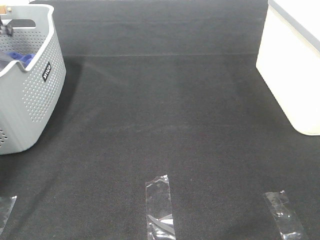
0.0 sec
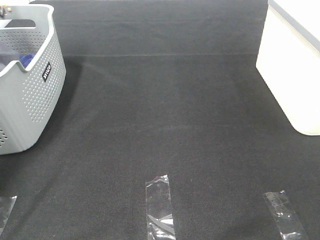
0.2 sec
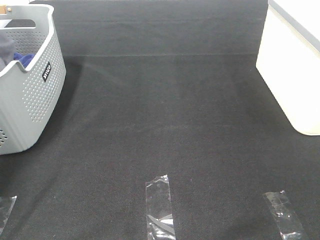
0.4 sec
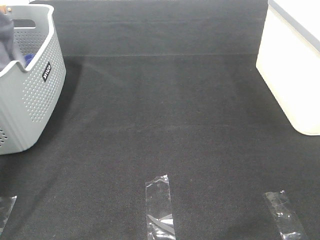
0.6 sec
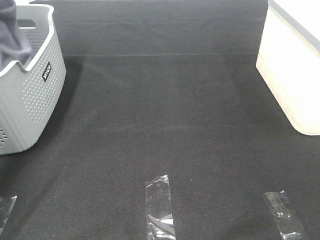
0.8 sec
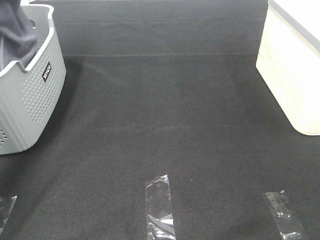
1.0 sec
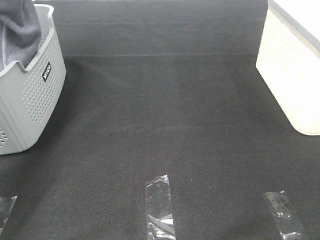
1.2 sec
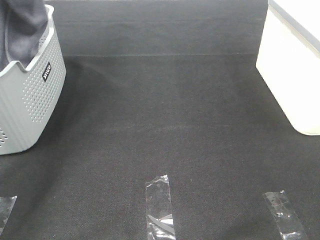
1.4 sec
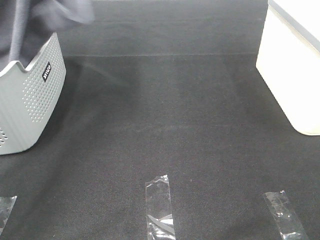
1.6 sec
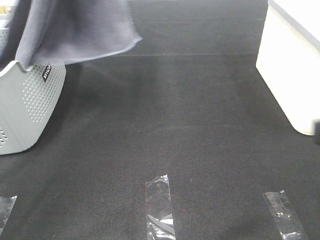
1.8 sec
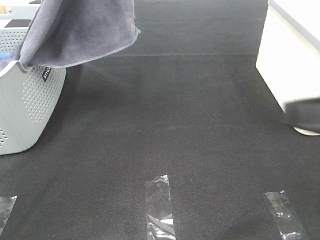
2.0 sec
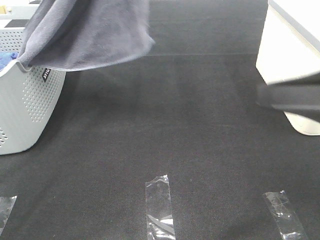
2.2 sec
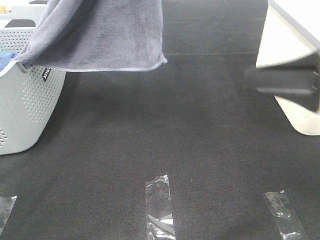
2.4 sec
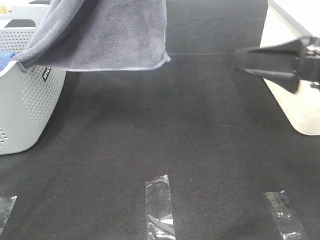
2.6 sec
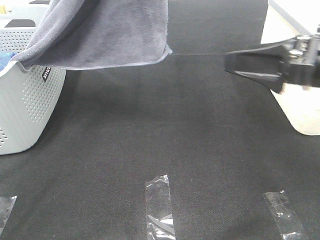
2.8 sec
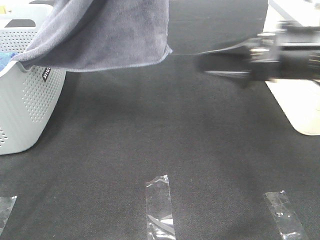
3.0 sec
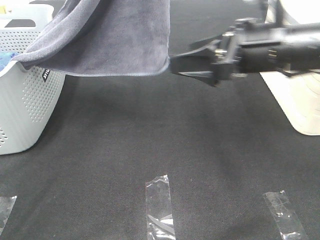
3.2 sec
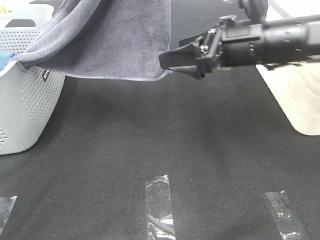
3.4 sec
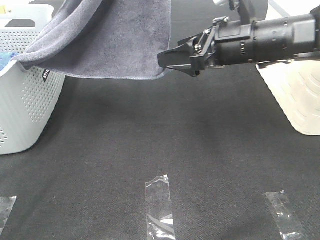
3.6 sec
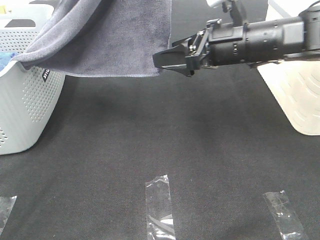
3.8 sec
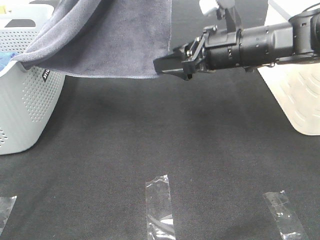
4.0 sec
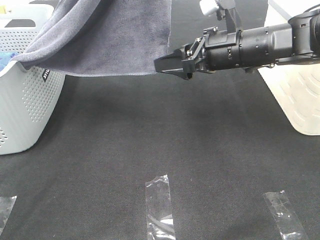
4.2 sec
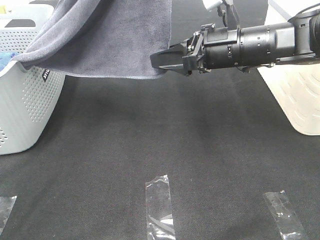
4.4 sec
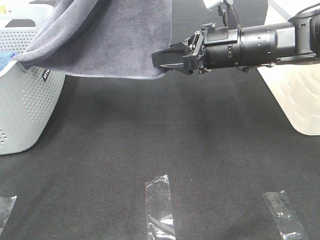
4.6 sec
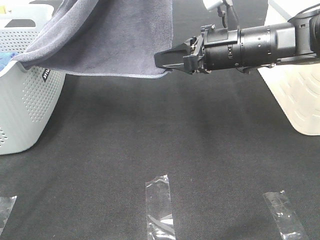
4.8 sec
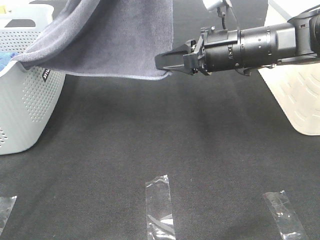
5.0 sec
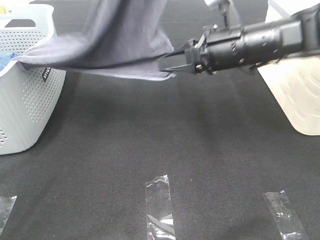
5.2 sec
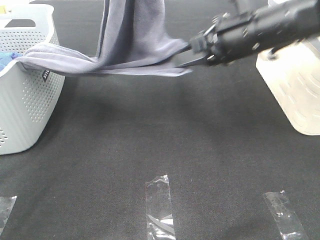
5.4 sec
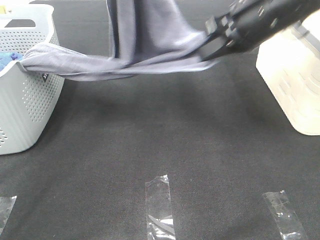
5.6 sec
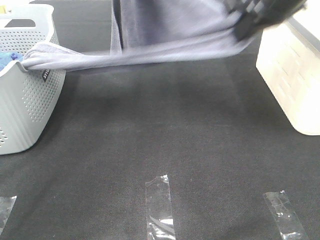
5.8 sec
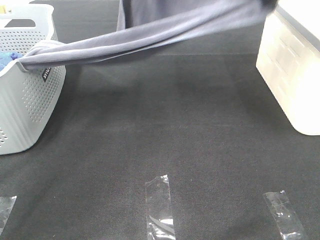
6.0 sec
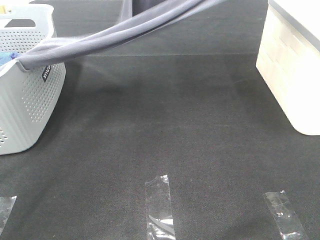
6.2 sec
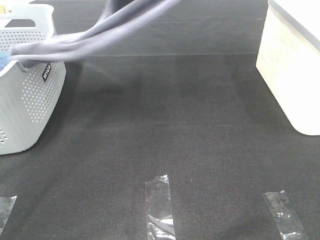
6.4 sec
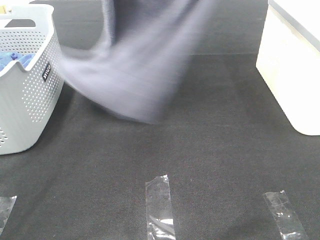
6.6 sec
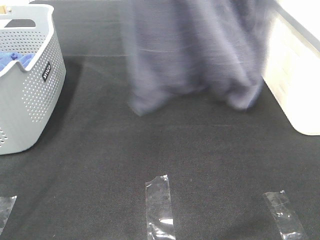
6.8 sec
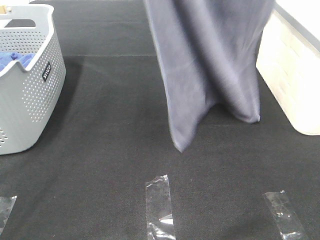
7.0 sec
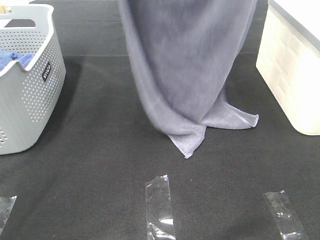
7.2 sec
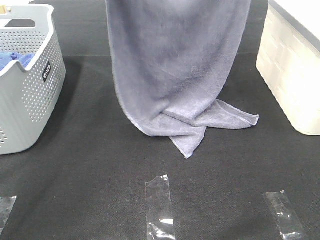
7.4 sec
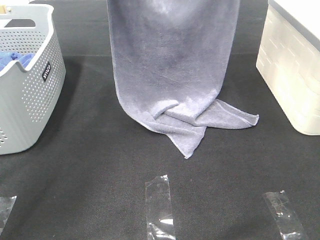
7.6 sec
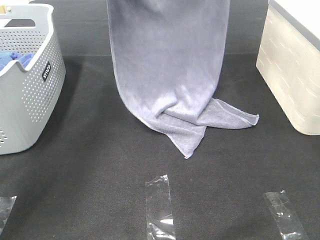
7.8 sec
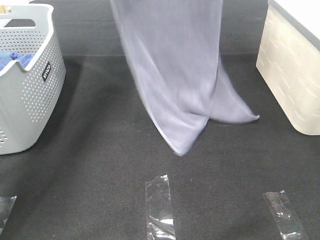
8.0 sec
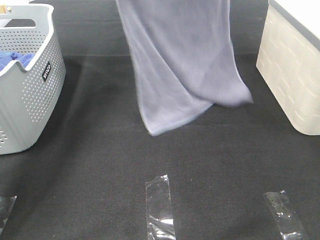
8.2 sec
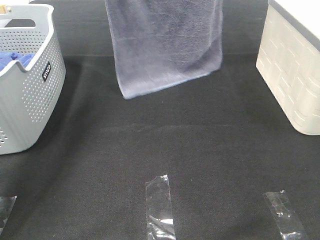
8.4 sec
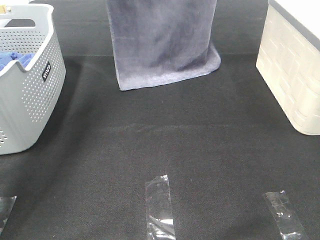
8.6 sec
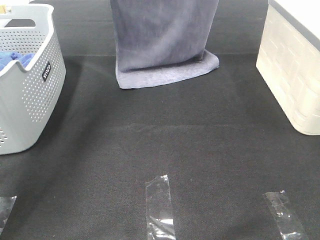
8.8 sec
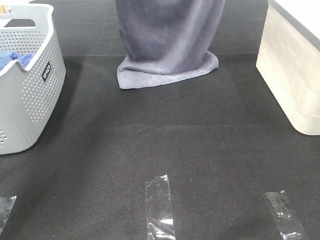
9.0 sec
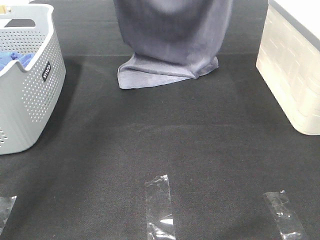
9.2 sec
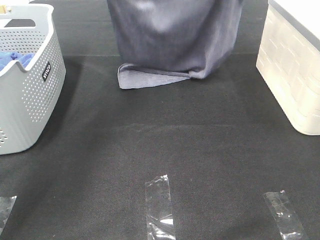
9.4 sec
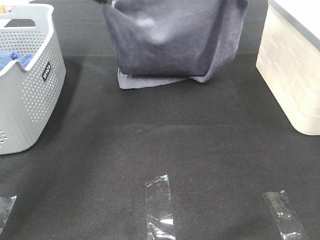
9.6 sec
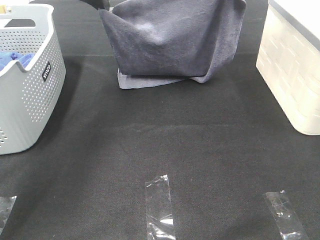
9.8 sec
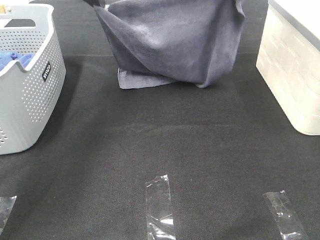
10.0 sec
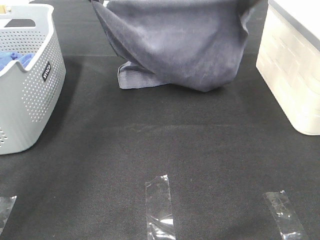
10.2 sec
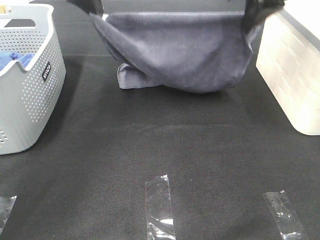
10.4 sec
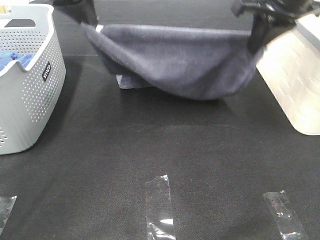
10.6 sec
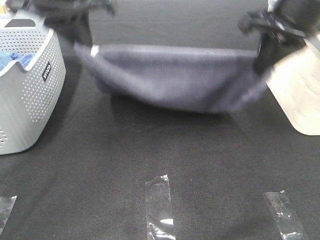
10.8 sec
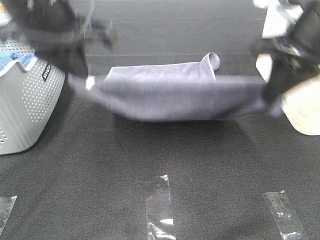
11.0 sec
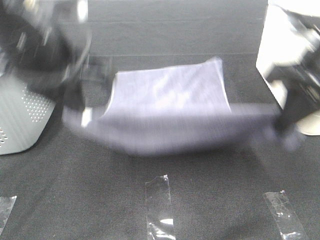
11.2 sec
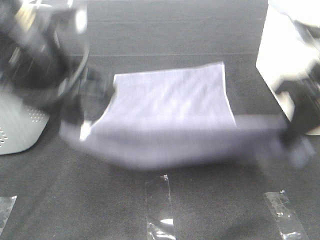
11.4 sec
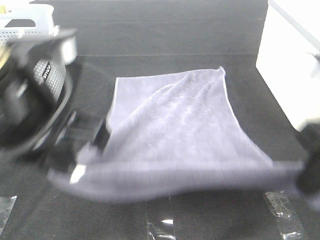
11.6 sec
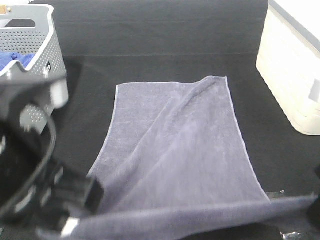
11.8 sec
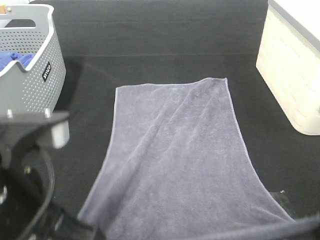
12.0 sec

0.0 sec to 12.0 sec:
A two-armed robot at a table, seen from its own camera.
Task of the whole recording: Remove the towel and place it.
Step, 0.8 sec to 3.8 sec: Right hand: grab a corner of the grey towel and straighten it.
Step, 4.0 sec to 8.6 sec: Left hand: spread the grey towel flat on the table.
Step, 4.0 sec to 8.6 sec: Right hand: spread the grey towel flat on the table.
0.0 sec to 1.6 sec: The left gripper heads upward, to the right and backward, covering roughly 40 cm.
1.6 sec to 3.0 sec: The left gripper goes roughly 15 cm to the right and backward. Meanwhile the right gripper shifts roughly 20 cm forward.
3.0 sec to 4.4 sec: The right gripper shifts some 10 cm forward and to the left.
4.4 sec to 6.0 sec: The right gripper goes roughly 20 cm upward, and closes up, while the left gripper heads forward and downward, covering approximately 15 cm.
6.0 sec to 7.6 sec: The left gripper goes about 10 cm forward and to the left, and reaches approximately 15 cm upward, then returns. The right gripper moves forward, some 10 cm, and moves some 15 cm upward and comes back.
7.6 sec to 9.0 sec: The left gripper moves approximately 10 cm upward and comes back, while the right gripper moves roughly 5 cm upward and comes back.
9.0 sec to 10.4 sec: The left gripper is displaced backward by roughly 10 cm, while the right gripper travels downward and backward by approximately 10 cm.
10.4 sec to 12.0 sec: The grippers both shift backward by about 30 cm.

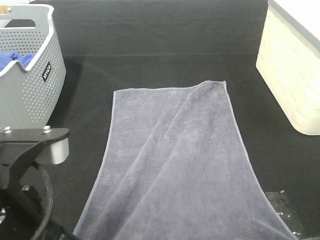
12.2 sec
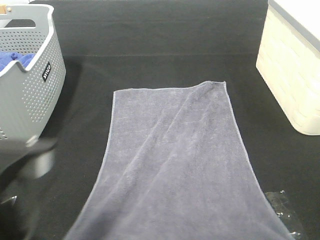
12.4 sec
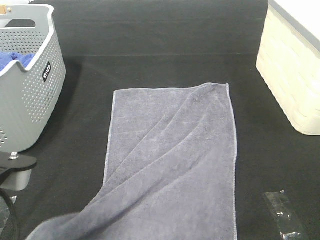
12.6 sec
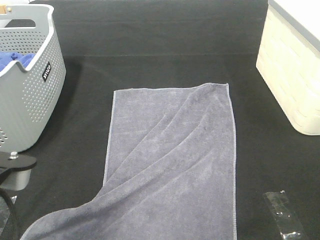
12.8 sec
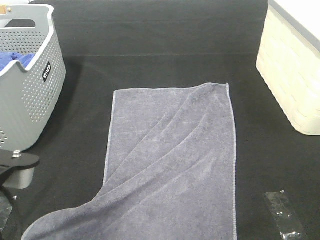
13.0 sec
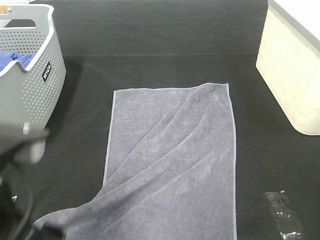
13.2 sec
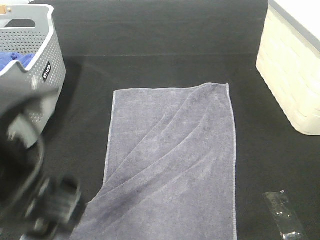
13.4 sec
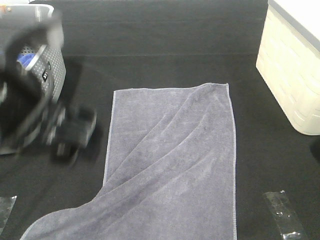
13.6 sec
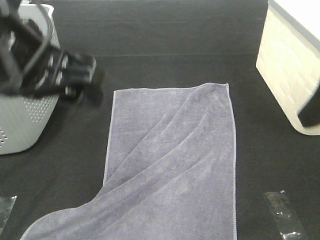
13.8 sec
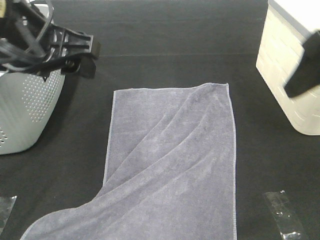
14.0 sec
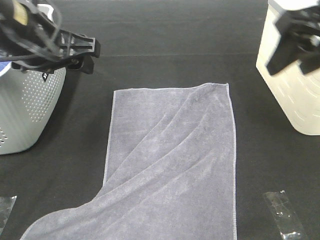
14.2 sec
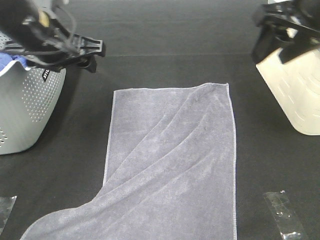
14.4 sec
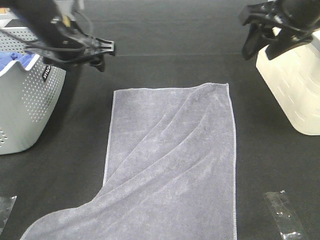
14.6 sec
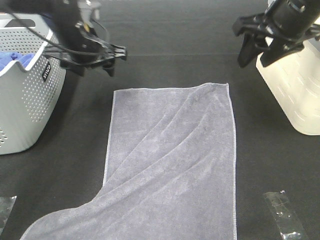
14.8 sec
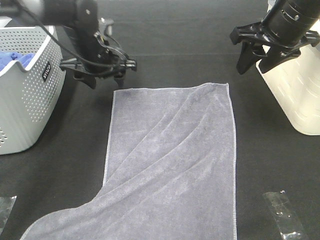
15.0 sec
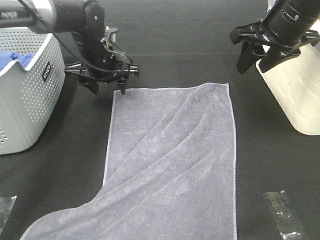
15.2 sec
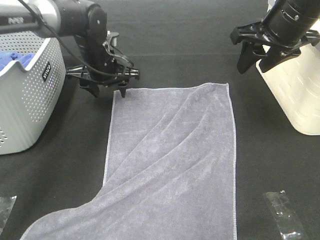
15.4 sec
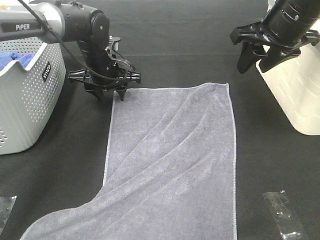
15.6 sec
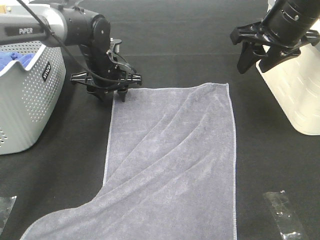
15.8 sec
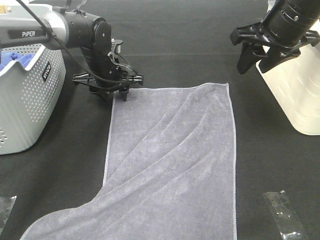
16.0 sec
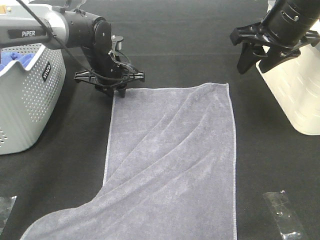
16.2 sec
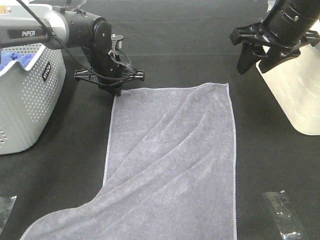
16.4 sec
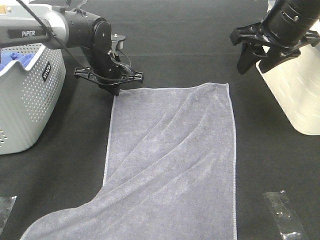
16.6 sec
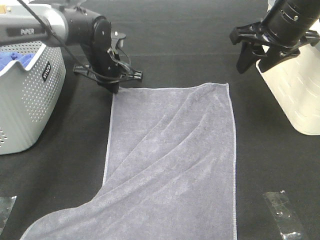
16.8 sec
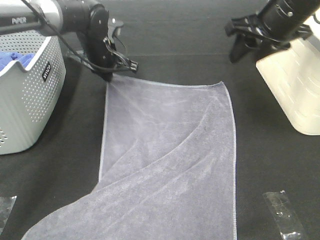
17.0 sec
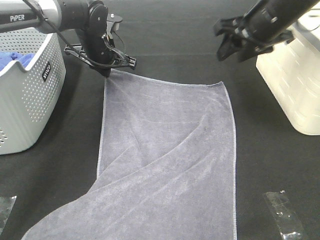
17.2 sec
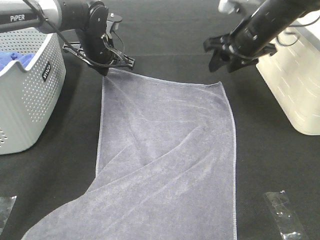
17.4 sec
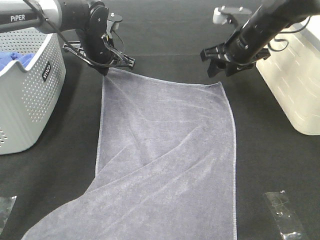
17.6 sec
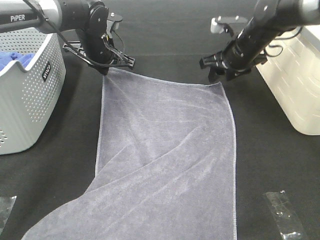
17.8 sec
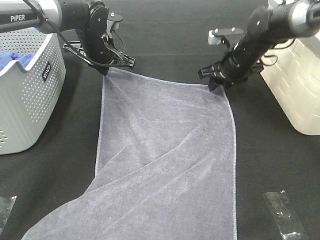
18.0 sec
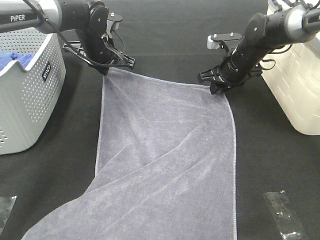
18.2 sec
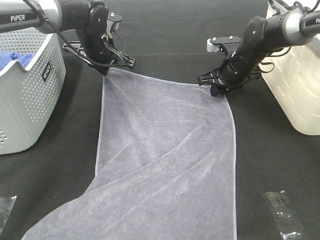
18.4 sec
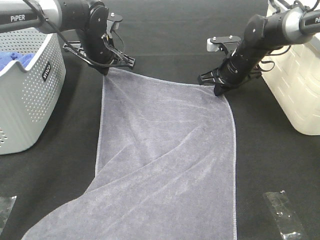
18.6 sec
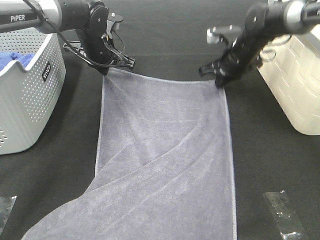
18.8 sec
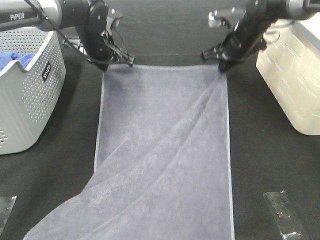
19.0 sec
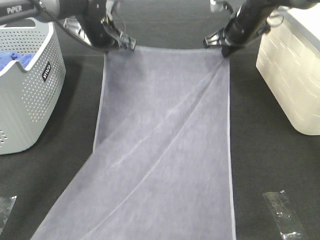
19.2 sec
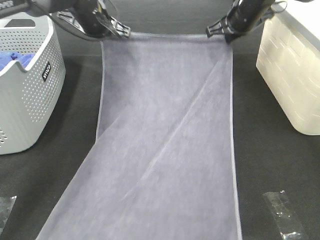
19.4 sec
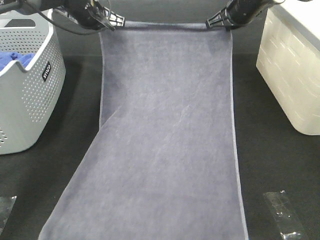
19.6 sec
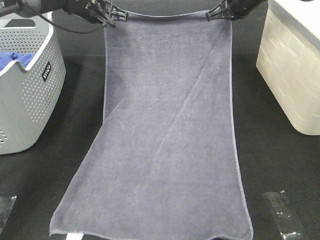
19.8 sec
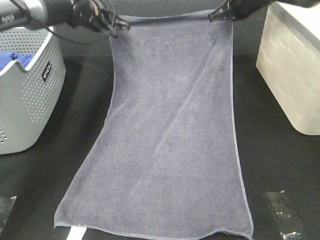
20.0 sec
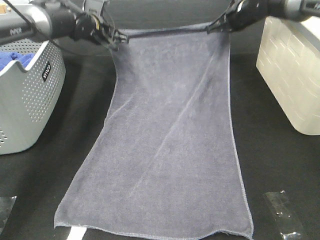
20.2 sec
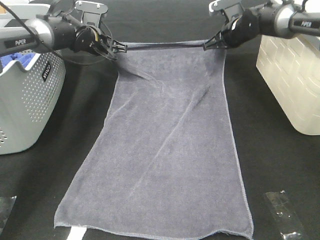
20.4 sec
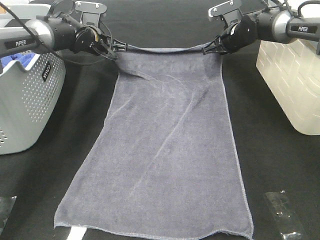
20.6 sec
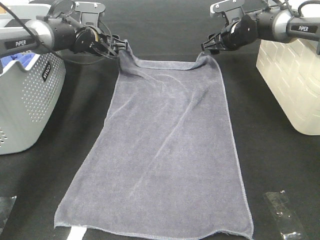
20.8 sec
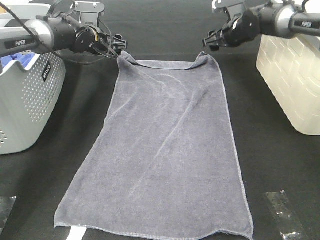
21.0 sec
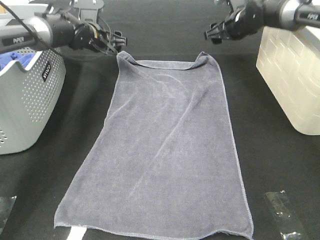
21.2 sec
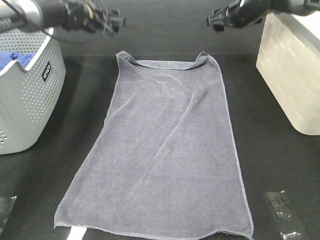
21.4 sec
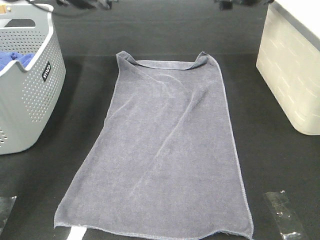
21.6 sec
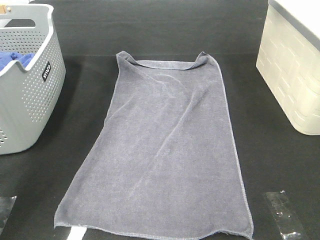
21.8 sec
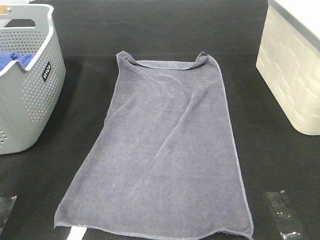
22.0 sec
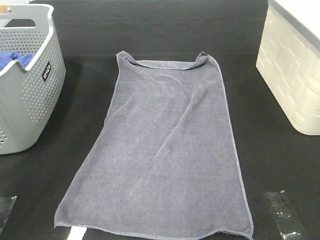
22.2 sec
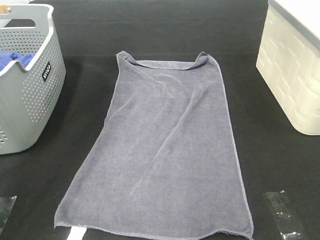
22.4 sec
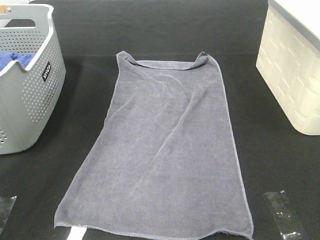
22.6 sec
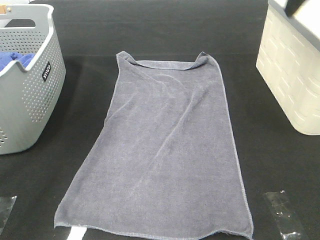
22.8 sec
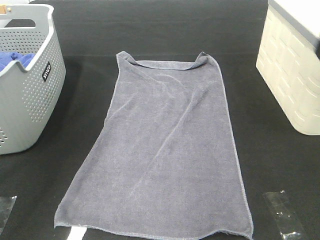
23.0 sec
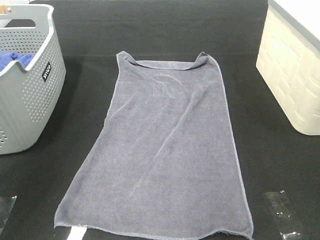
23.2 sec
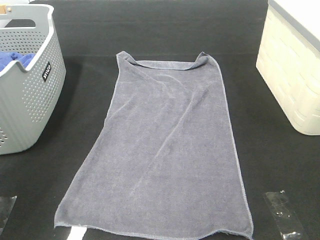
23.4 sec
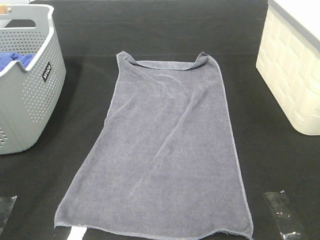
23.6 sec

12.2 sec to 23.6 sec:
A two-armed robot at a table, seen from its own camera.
Task of the whole recording: Remove the towel and place it.
Step, 12.2 sec to 15.4 sec: Left hand:adjust the gray towel.
Step, 12.2 sec to 15.4 sec: Right hand:adjust the gray towel.
12.2 sec to 13.6 sec: The right gripper moves upward, approximately 5 cm, and opens up. The left gripper is displaced forward and upward by about 10 cm, and opens up.
13.6 sec to 15.0 sec: The left gripper moves forward and downward, approximately 35 cm. Meanwhile the right gripper moves forward, approximately 20 cm.
15.0 sec to 16.4 sec: The left gripper shifts by some 5 cm, and closes its fingers.
16.4 sec to 17.8 sec: The right gripper travels downward and forward by approximately 15 cm.
17.8 sec to 19.4 sec: The right gripper moves upward and forward, roughly 10 cm, and closes up. Meanwhile the left gripper goes some 5 cm upward.
19.4 sec to 20.8 sec: The grippers both shift downward by some 10 cm. The left gripper opens up, while the right gripper opens its fingers.
20.8 sec to 22.2 sec: The two grippers go roughly 30 cm upward and backward.
22.2 sec to 23.6 sec: Both grippers travel together backward, approximately 35 cm.
